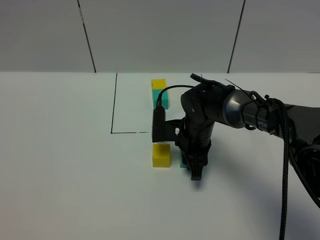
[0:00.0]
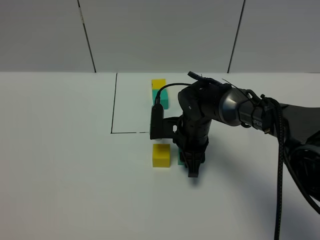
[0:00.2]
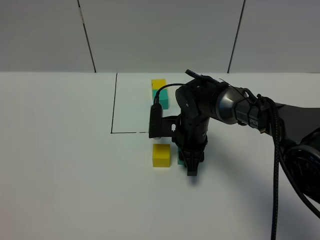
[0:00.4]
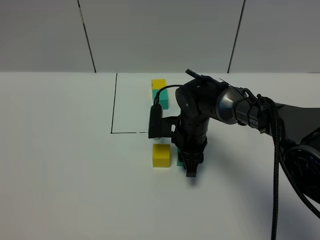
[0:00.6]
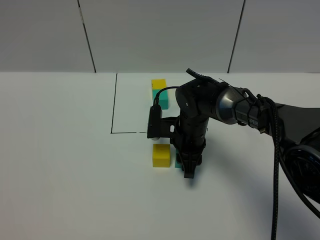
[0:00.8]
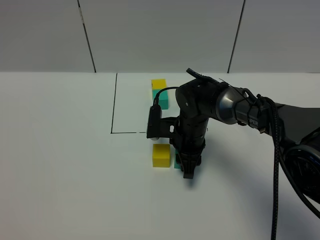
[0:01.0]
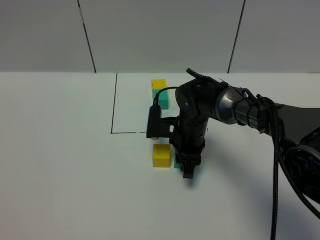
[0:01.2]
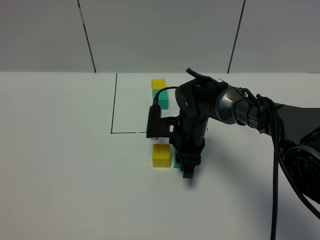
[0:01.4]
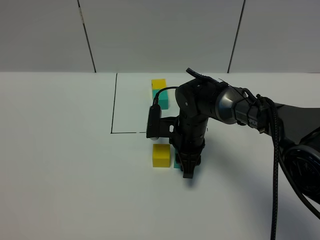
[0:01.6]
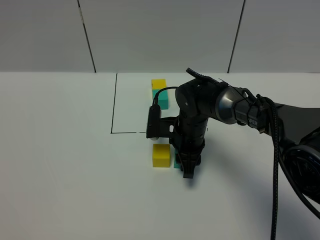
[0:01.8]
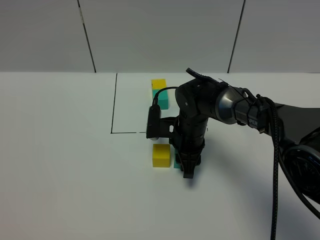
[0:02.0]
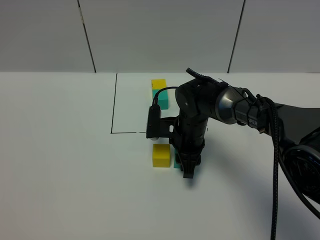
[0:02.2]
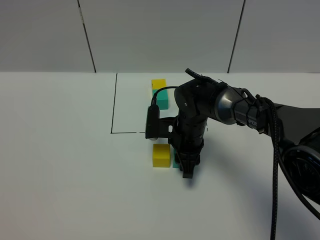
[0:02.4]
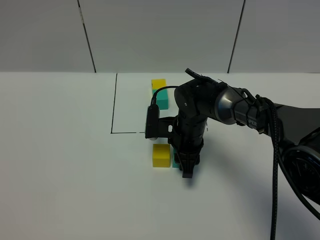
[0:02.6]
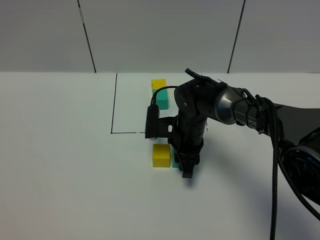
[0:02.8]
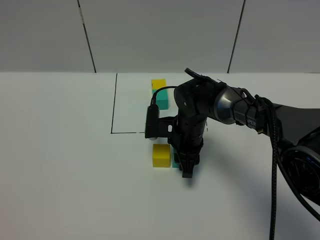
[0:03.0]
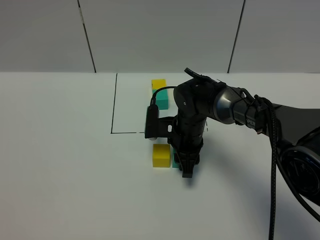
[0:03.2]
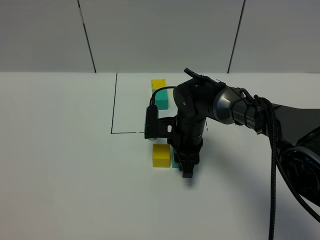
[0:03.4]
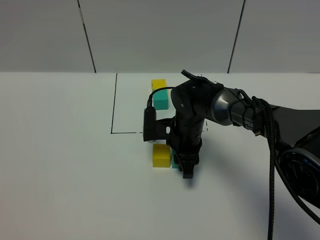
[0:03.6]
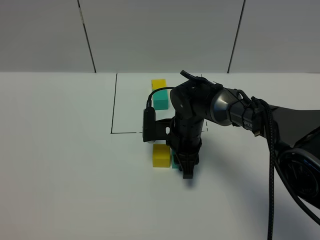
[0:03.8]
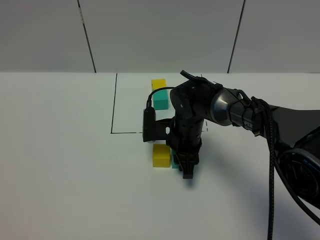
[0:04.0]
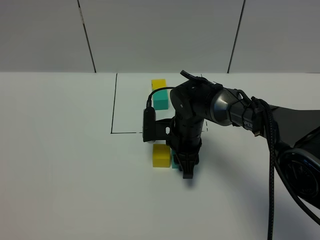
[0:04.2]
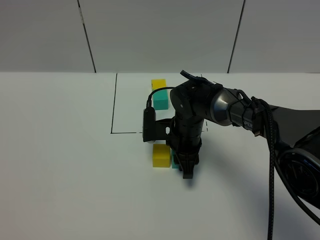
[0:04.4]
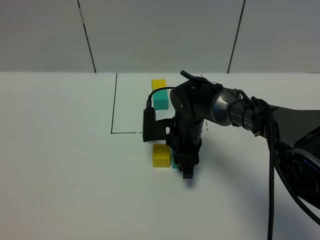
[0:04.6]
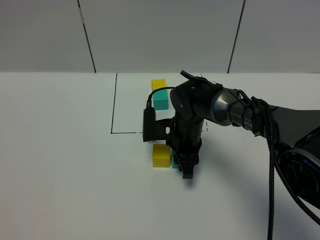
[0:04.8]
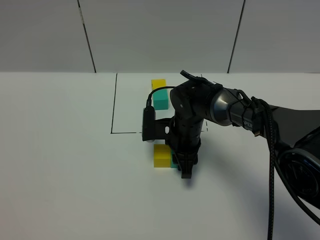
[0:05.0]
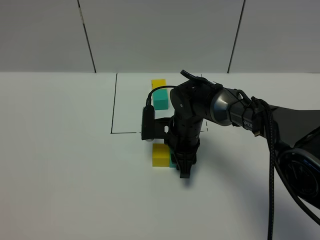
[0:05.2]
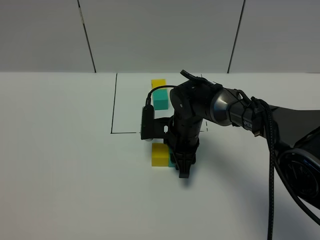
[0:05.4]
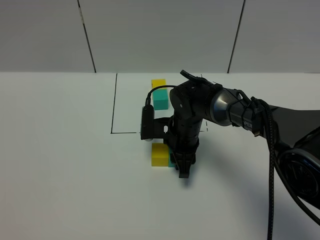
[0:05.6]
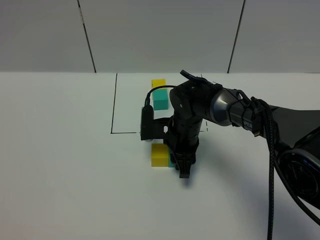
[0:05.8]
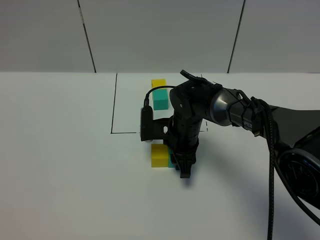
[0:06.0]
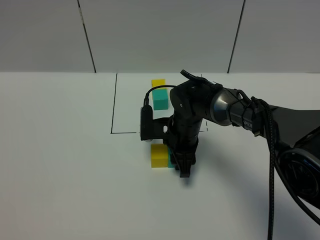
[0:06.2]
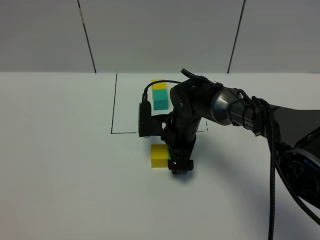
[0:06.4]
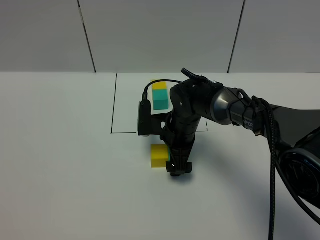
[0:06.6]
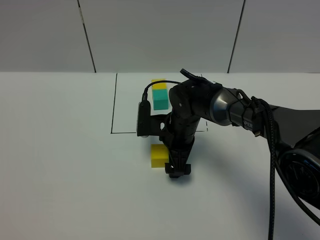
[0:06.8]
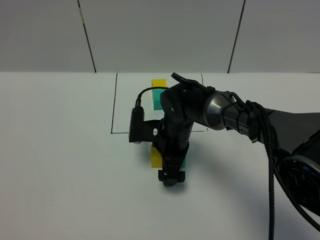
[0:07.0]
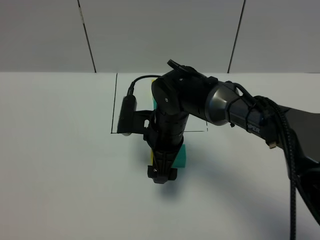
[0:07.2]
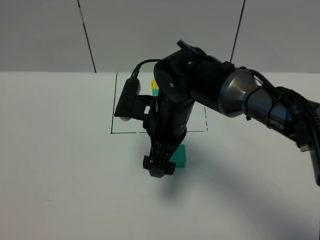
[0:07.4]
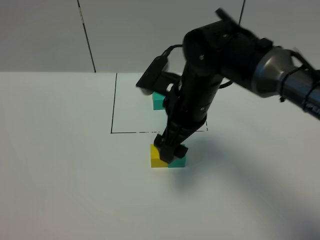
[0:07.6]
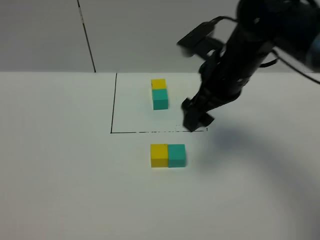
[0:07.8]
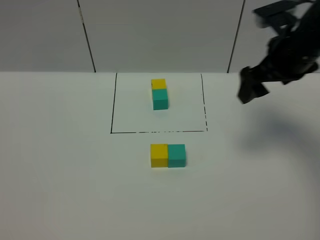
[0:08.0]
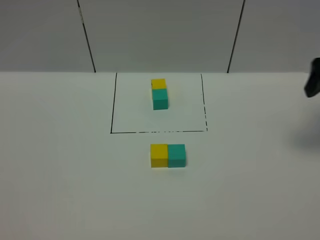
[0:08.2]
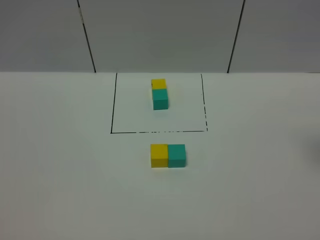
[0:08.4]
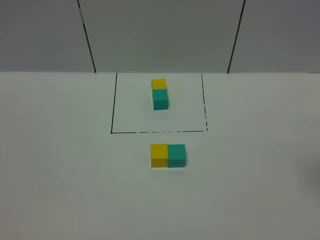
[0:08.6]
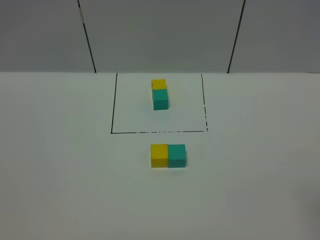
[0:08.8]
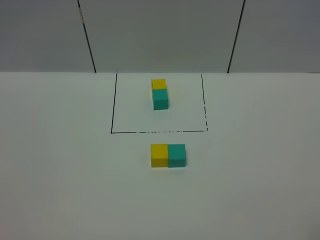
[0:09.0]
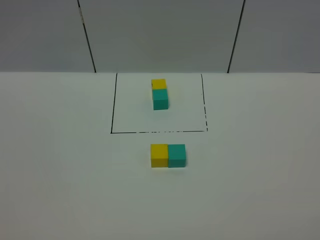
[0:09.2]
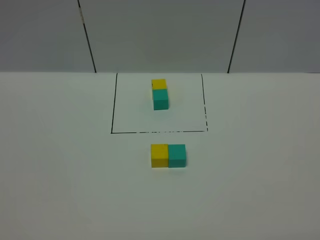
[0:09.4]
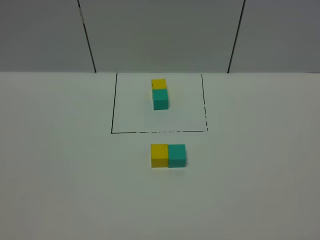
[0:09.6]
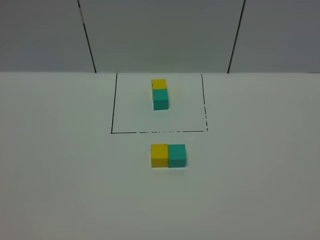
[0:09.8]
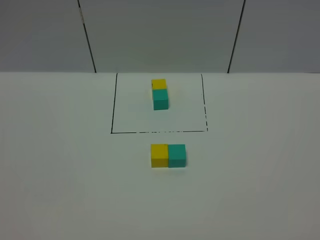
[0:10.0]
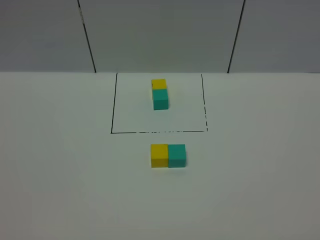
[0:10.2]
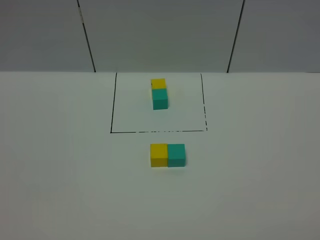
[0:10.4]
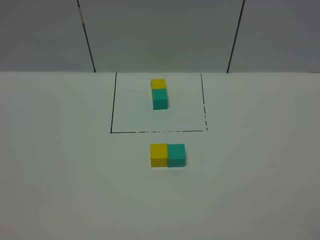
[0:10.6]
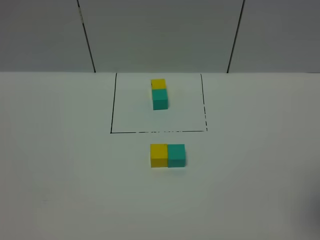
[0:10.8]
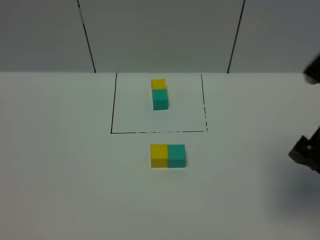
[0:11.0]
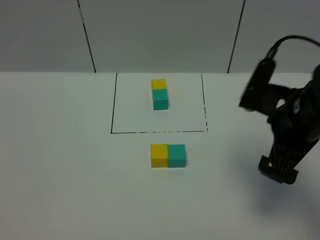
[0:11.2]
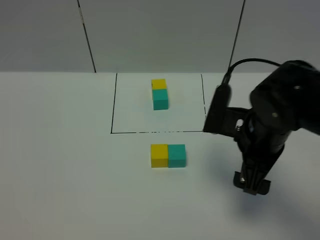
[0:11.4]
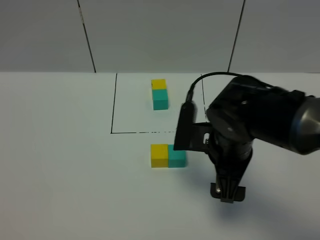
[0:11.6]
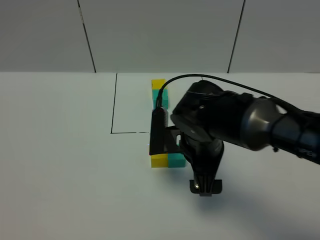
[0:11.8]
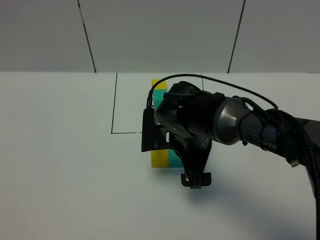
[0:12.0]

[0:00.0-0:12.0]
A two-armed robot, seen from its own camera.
Task of the whole recording: According to the building block template in front, assemble the scattered blocks together.
Step, 0:00.0 to 0:07.0: Put the green cube on the right of the yellow cube.
0:00.0 to 0:01.6: The grippers move only a little.
0:01.6 to 0:03.0: The two grippers keep their place.
0:03.0 to 0:06.0: The two grippers keep their place.
0:06.0 to 0:07.6: The right gripper is displaced upward by about 15 cm, and opens up.
0:07.6 to 0:09.0: The right gripper is displaced backward and to the right by roughly 35 cm.
0:10.4 to 0:12.0: The right gripper goes approximately 40 cm forward, to the left and downward.

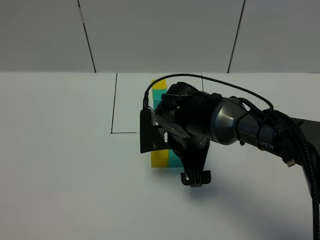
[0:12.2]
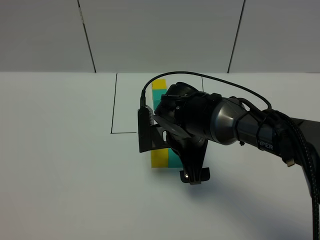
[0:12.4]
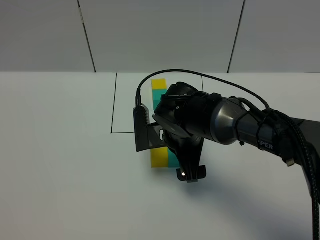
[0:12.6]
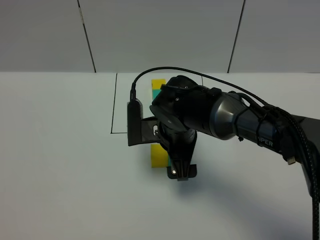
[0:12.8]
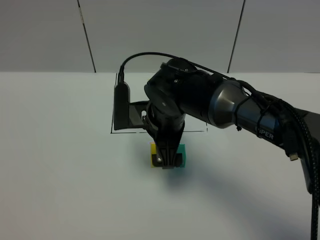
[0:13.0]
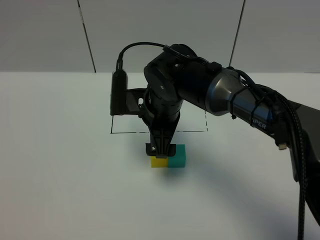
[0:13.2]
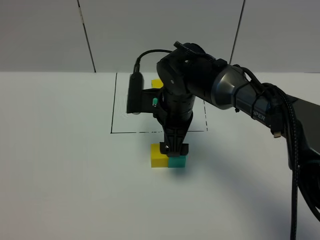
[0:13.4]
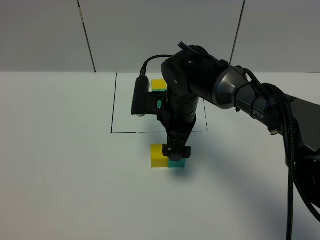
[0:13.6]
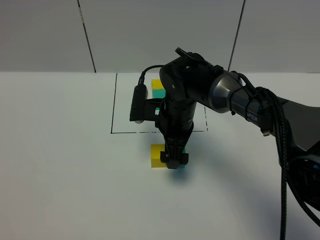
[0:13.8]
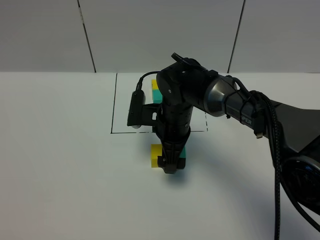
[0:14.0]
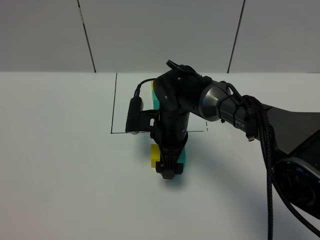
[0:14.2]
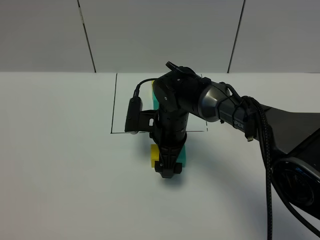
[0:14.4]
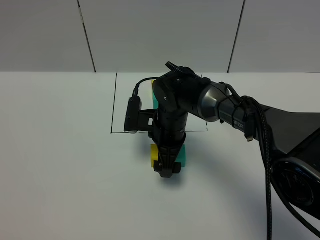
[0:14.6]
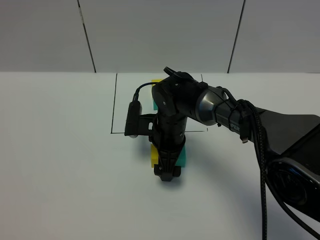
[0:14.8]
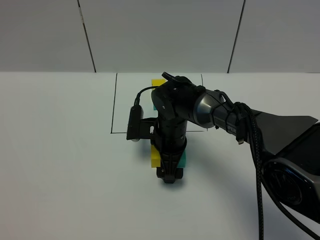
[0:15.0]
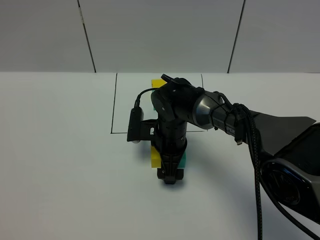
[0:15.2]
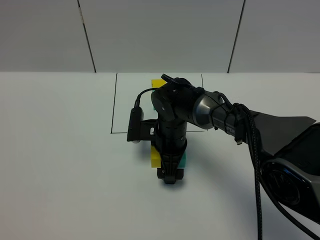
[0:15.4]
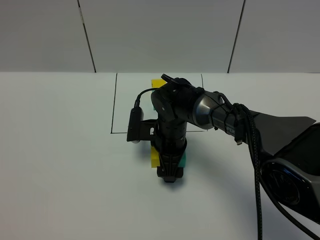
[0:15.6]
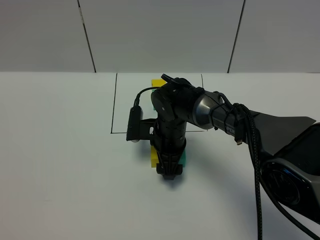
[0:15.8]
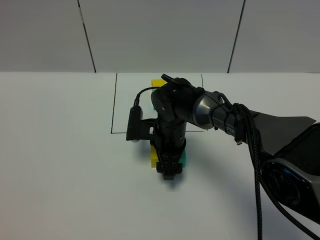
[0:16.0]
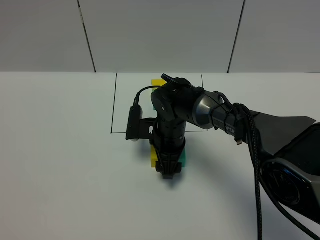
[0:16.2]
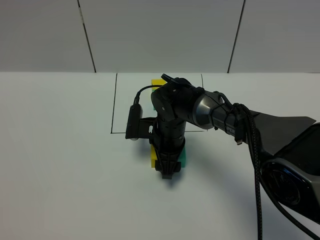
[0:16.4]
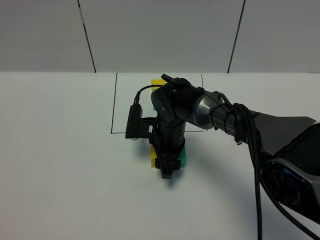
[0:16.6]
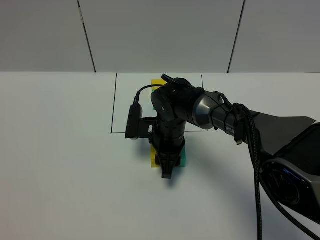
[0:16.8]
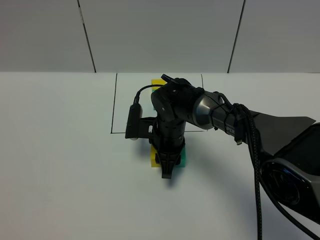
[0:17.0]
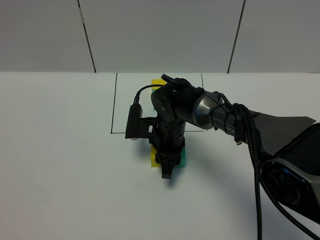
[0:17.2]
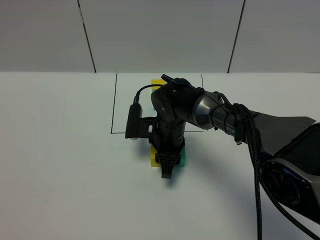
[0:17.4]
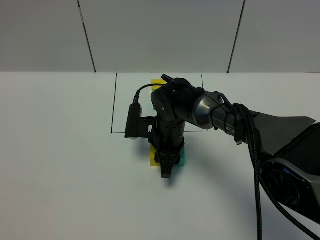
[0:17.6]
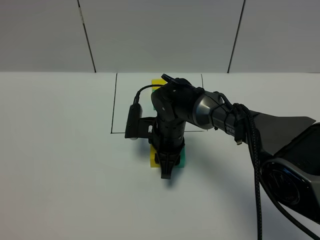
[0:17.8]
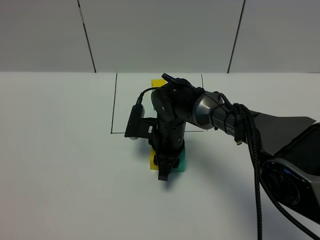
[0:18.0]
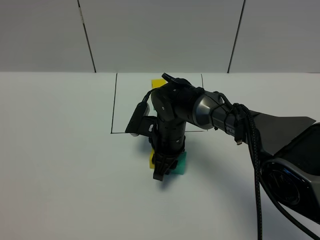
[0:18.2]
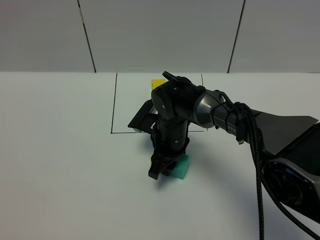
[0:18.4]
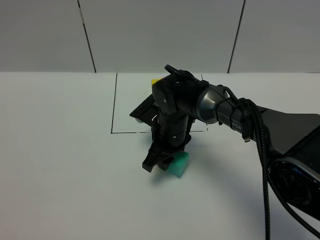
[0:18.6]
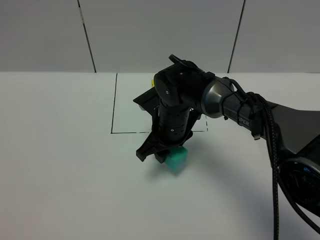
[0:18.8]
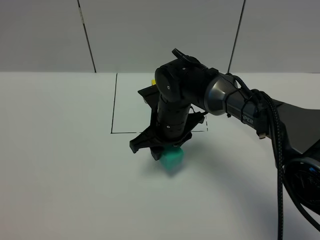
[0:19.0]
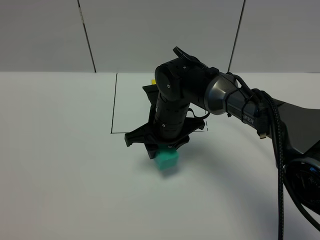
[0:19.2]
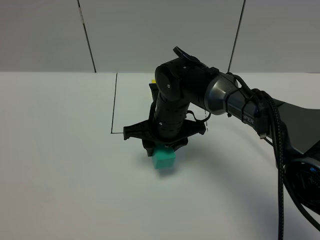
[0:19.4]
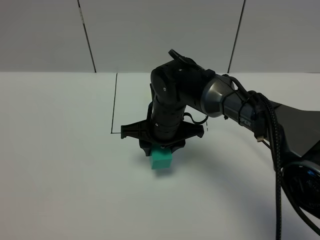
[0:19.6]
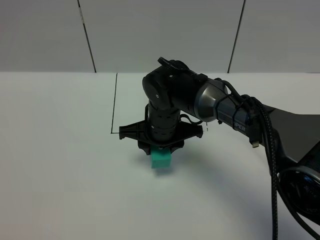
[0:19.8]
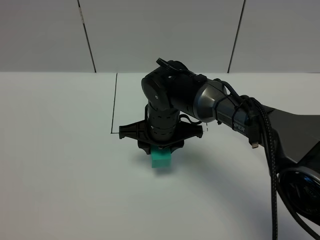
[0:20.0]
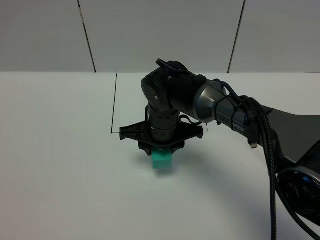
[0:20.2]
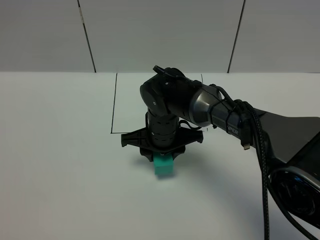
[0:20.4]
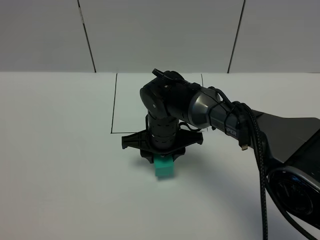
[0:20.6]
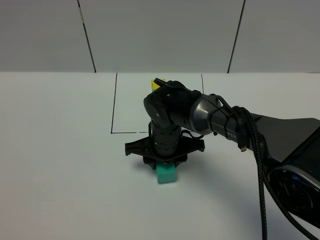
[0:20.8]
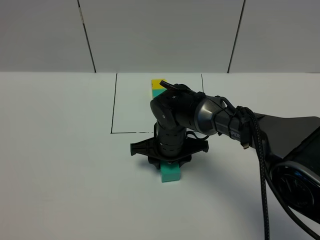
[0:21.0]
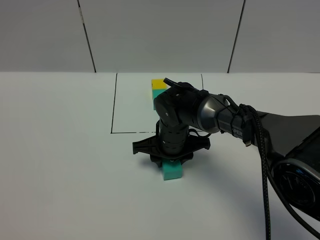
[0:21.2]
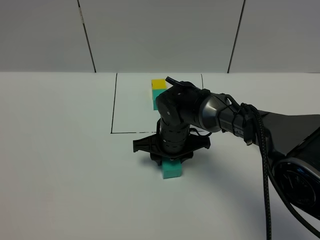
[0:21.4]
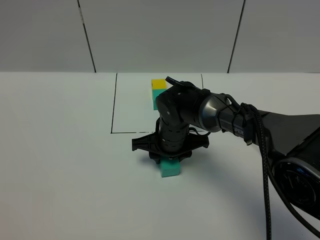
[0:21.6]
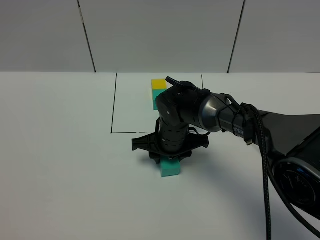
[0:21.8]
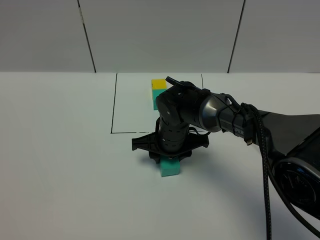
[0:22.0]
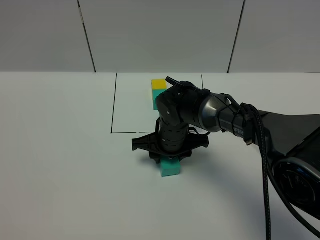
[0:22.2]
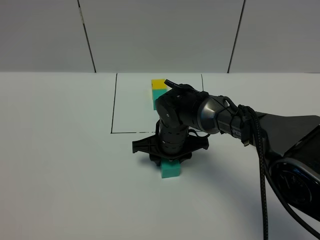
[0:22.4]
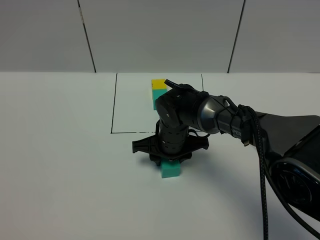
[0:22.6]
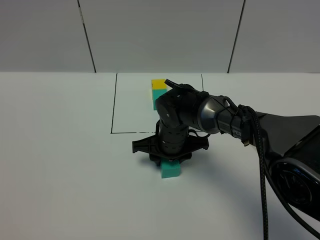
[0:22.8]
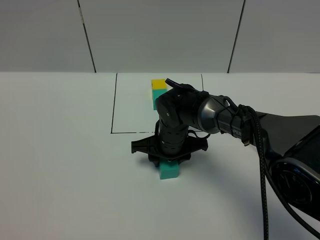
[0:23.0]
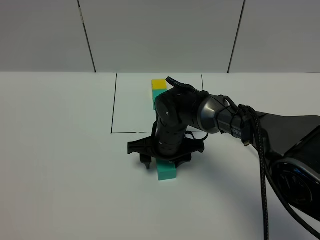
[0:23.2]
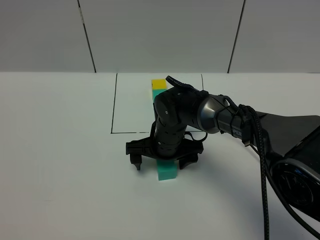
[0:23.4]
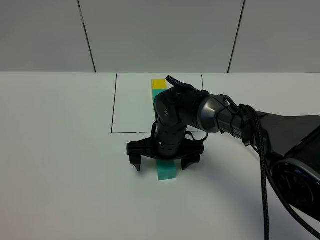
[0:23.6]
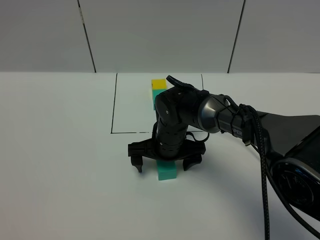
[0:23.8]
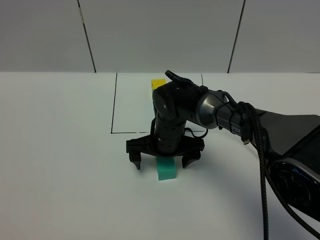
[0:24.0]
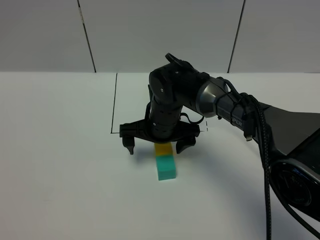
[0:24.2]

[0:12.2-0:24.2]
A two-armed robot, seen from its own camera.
Task of the whole recording: According to the building block template in front, assemble the scattered blocks together.
Step, 0:12.2 to 0:23.6: Adjust the pose of the building blocks.
0:12.2 to 0:13.8: The right gripper heads forward, covering approximately 5 cm.
0:13.8 to 0:15.2: The right gripper heads downward, covering approximately 5 cm.
0:15.2 to 0:16.6: The right gripper closes.
0:16.6 to 0:18.2: The grippers make only small movements.
0:18.2 to 0:19.8: The right gripper is displaced upward by approximately 5 cm.
0:19.8 to 0:21.2: The right gripper travels downward by approximately 5 cm.
0:21.2 to 0:22.6: The two grippers keep their place.
0:22.6 to 0:24.2: The right gripper goes roughly 5 cm upward, and opens its fingers.
